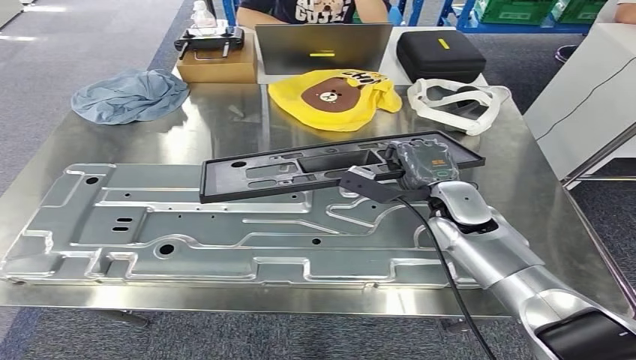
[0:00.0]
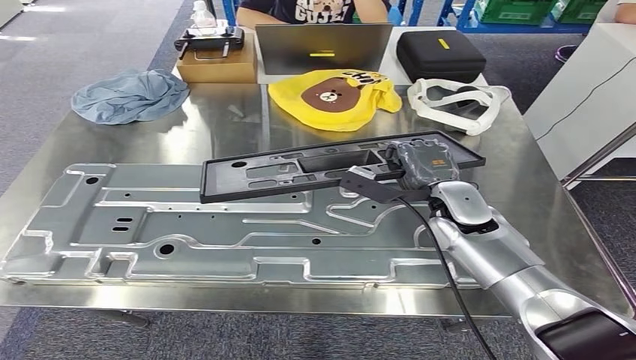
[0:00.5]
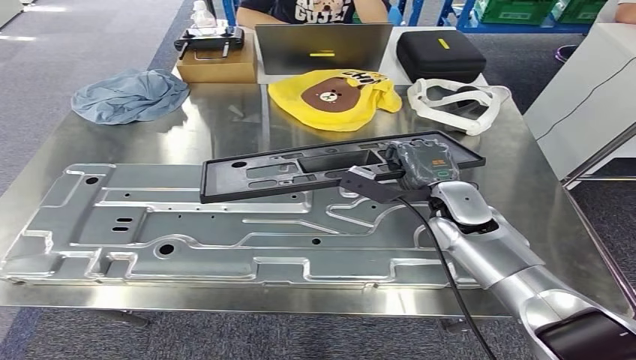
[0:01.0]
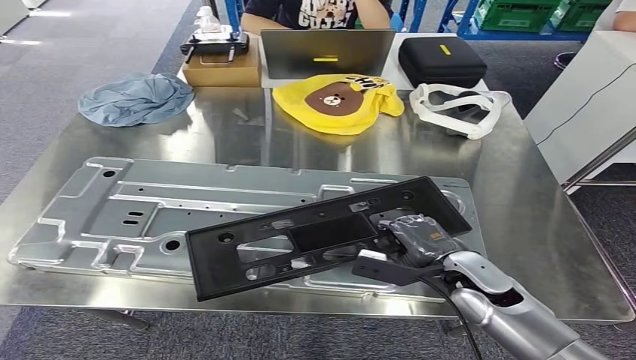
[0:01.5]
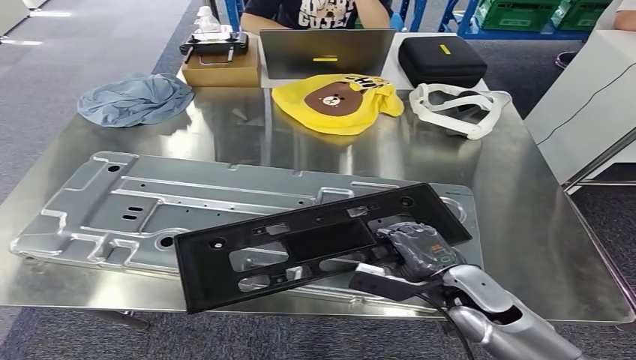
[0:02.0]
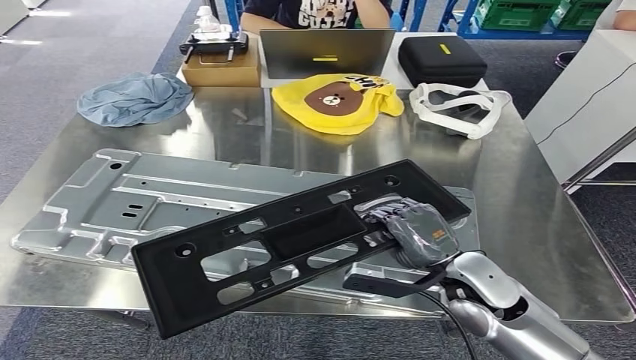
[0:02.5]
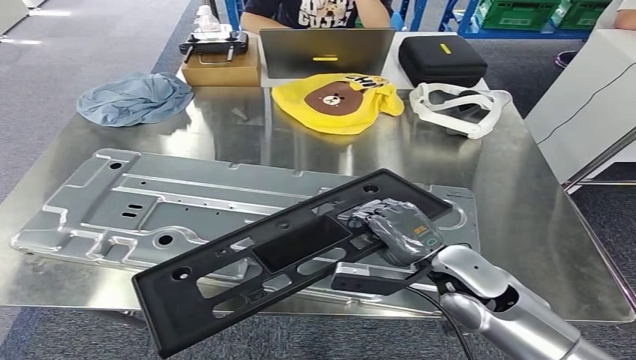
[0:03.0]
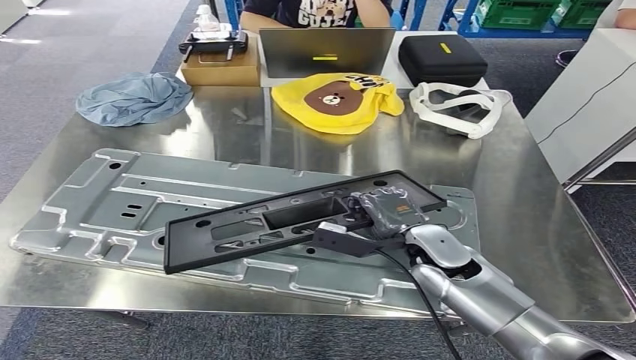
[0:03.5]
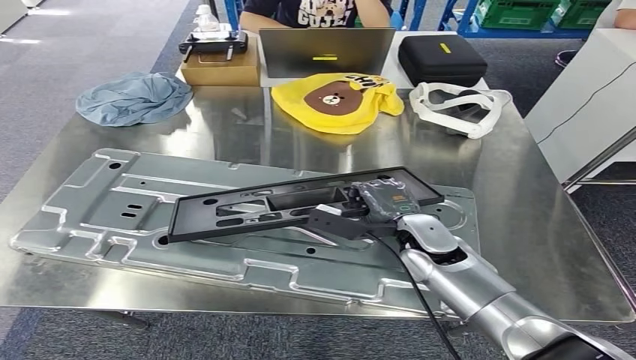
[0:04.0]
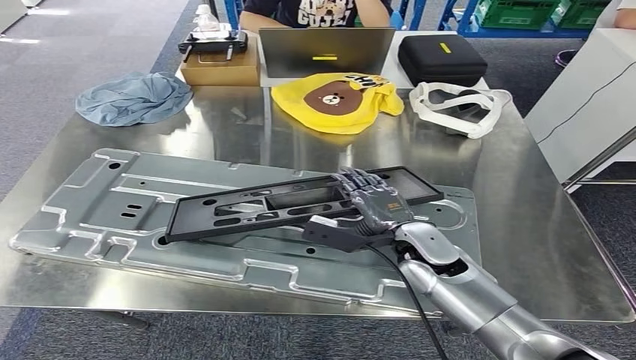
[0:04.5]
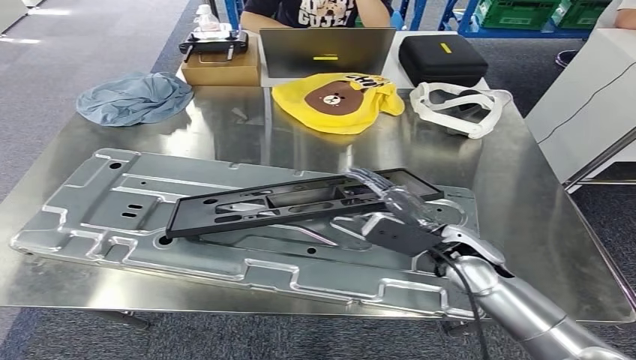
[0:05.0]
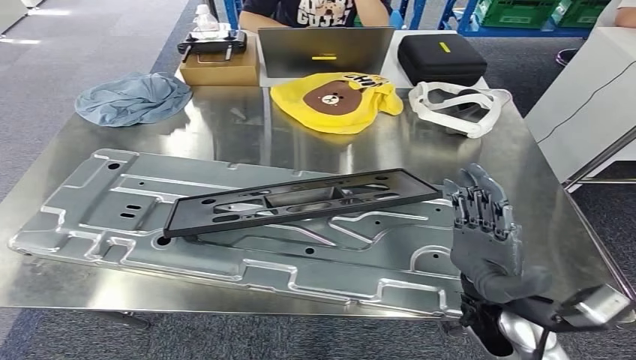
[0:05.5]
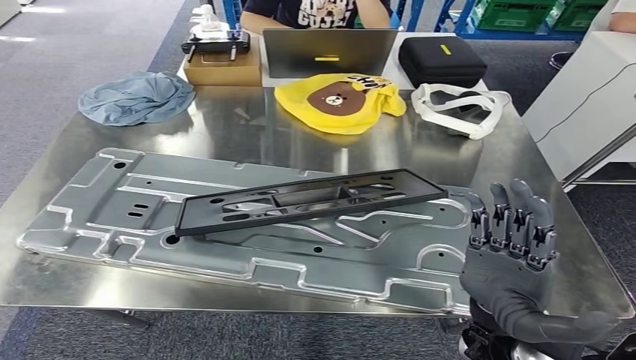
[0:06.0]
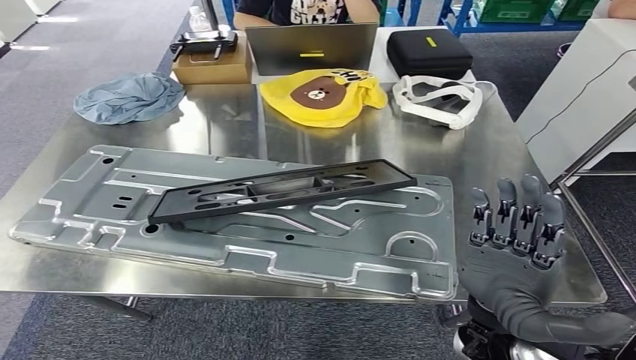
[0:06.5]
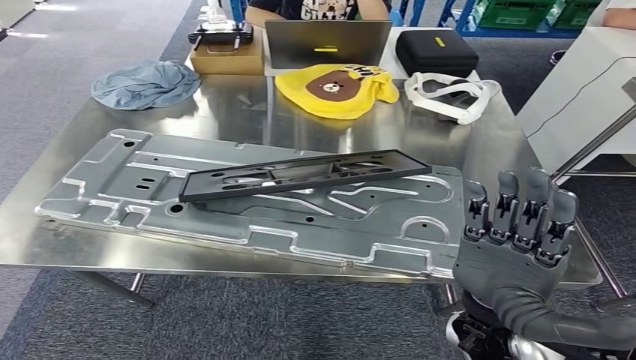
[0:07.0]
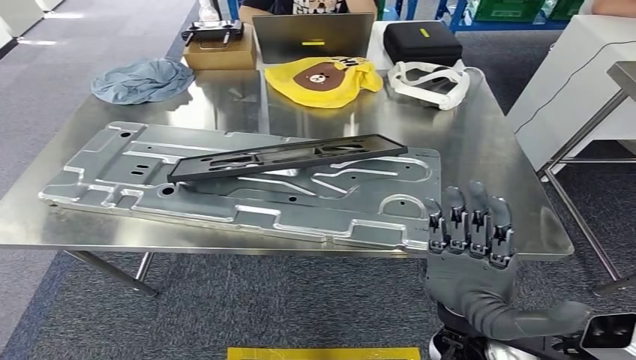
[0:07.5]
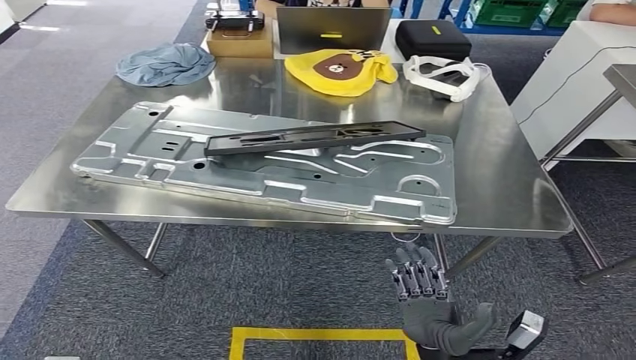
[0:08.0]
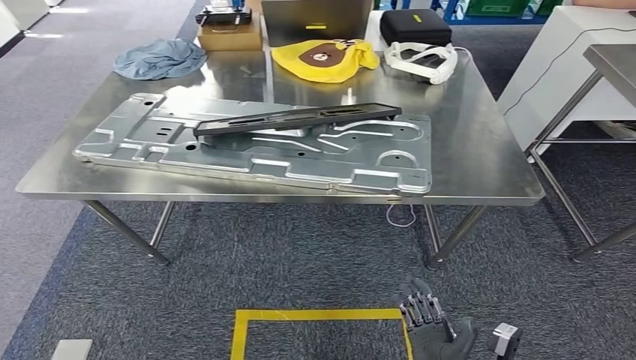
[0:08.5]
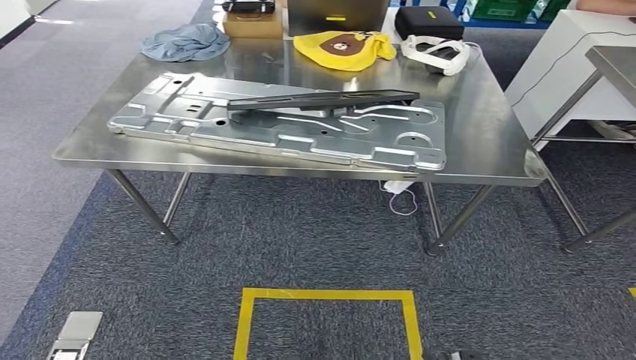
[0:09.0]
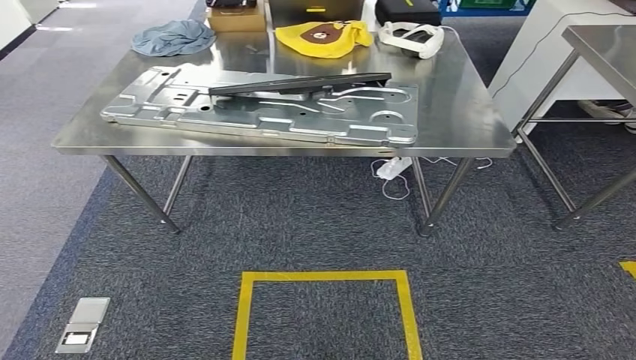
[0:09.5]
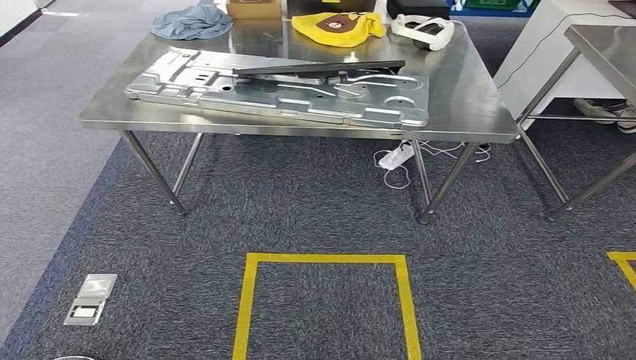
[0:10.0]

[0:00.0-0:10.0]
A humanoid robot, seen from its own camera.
Step, 0:00.0 to 0:07.0: Insert the large material into the corresponding slot on the workbench.
Step, 0:08.0 to 0:10.0: Move to the initial position of the shelf.
